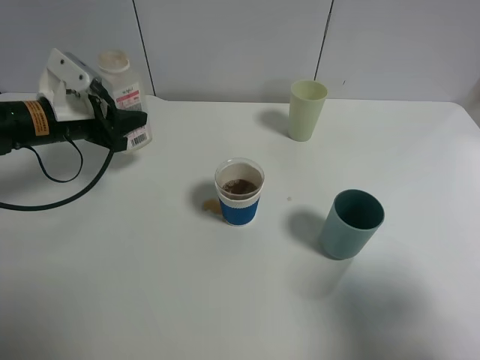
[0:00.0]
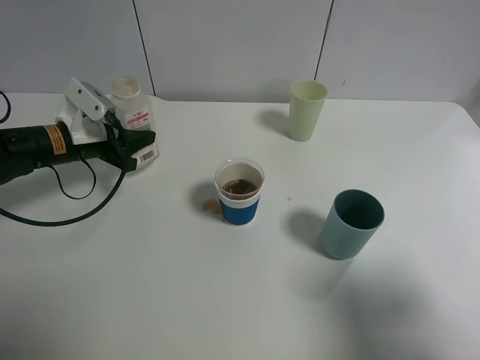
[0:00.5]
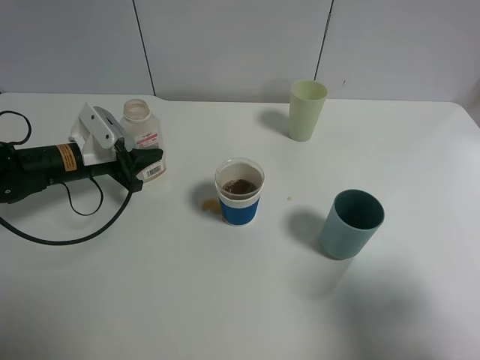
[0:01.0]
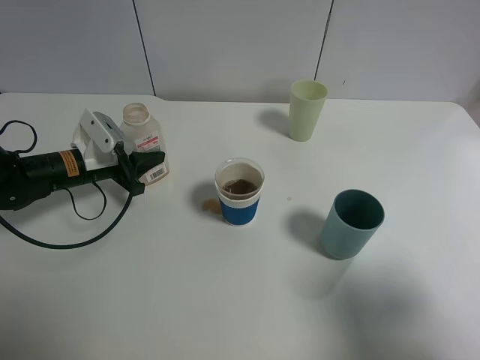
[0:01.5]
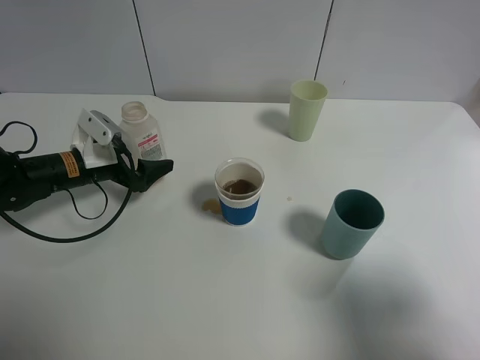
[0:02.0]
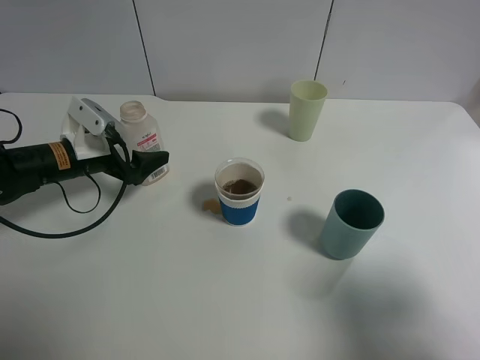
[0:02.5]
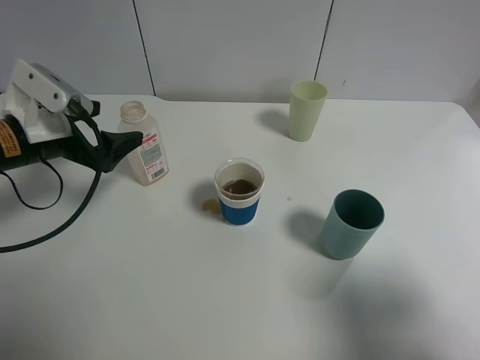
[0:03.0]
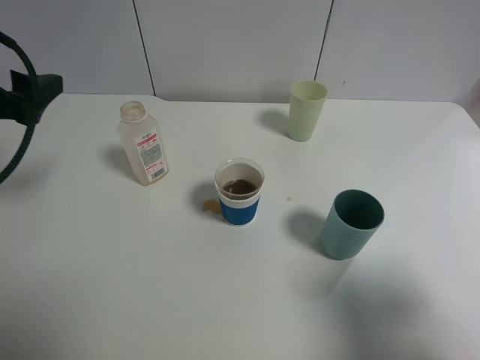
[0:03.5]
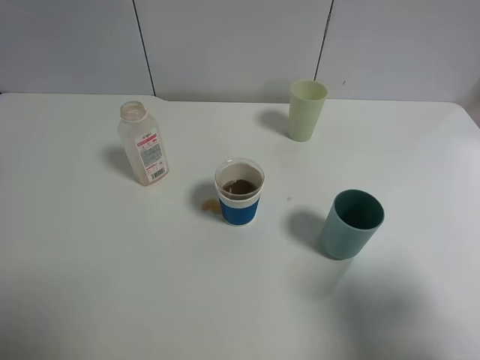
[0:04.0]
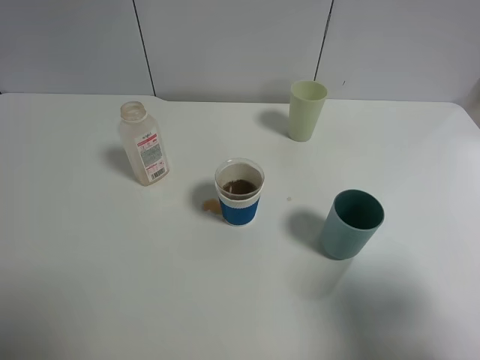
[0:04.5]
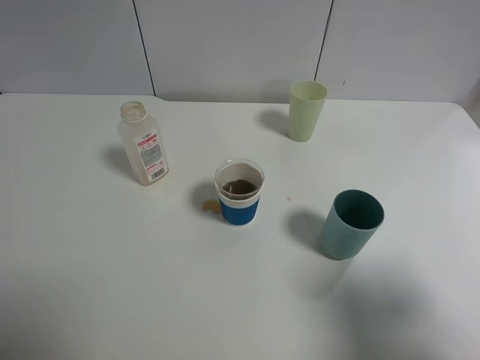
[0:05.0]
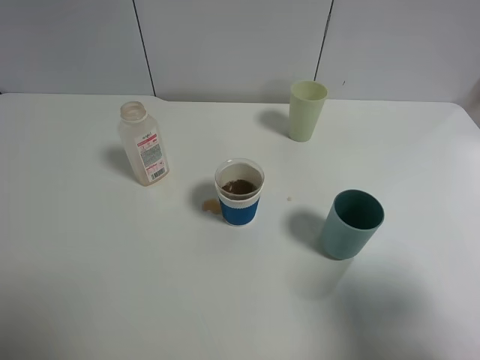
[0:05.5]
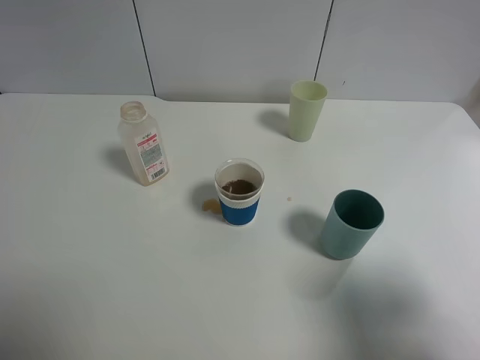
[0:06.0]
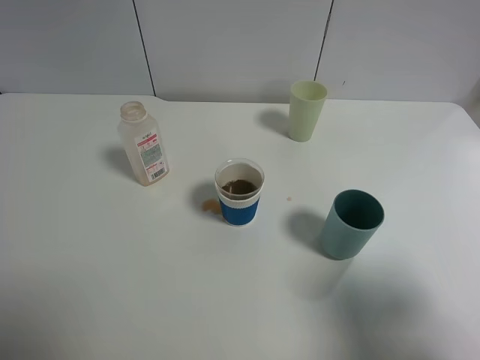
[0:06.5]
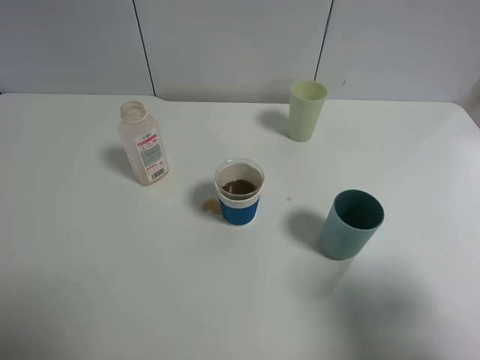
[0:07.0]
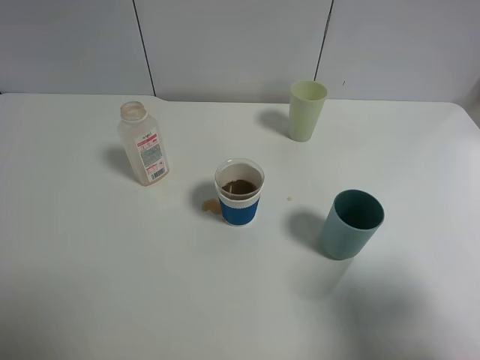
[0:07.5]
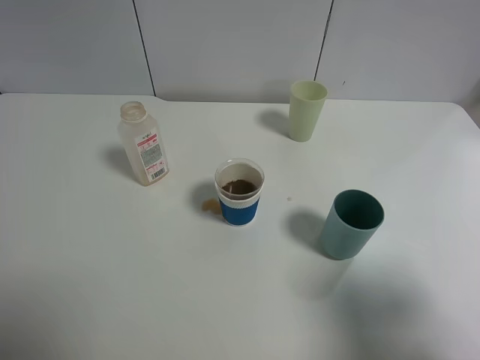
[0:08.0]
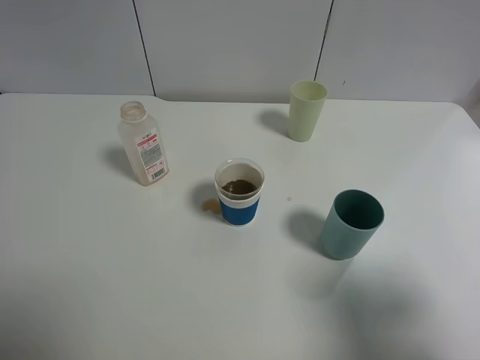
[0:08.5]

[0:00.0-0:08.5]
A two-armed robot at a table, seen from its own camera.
Task of the whole recording: use a gripper to hold the bottle of the drink and pour it into a random cup.
Step, 0:00.0 to 0:02.0: Place the cranberry juice bottle on the table with the left gripper.
0:00.0 to 0:02.0: The left gripper goes about 10 cm downward, and opens.
0:02.0 to 0:04.0: The left gripper moves upward and backward, roughly 30 cm.
0:06.5 to 0:08.5: Both grippers stay put.

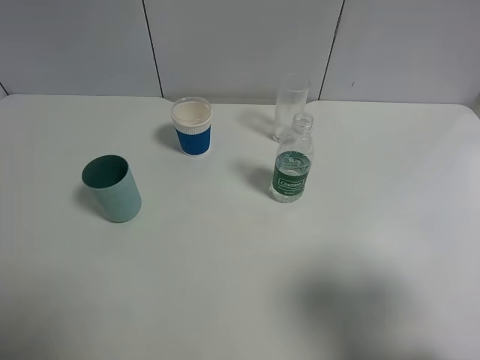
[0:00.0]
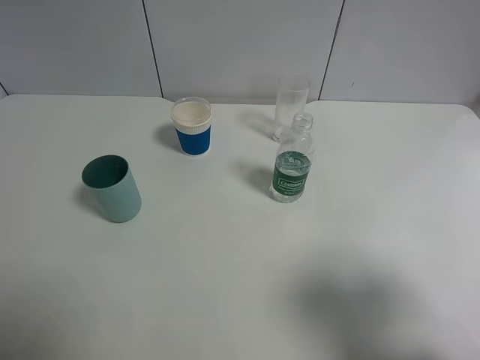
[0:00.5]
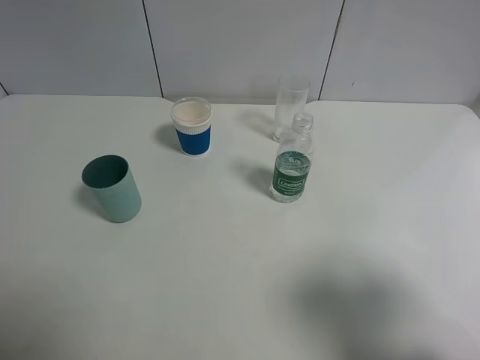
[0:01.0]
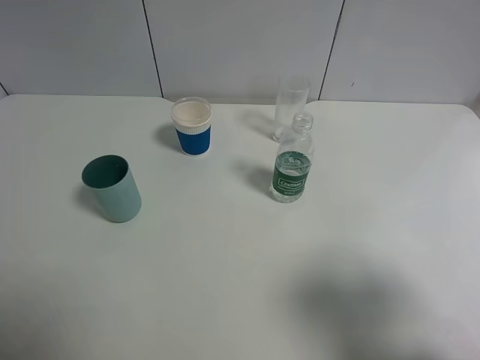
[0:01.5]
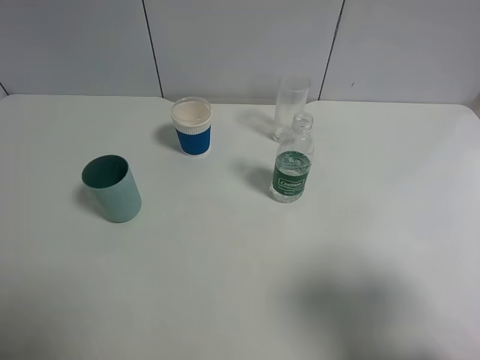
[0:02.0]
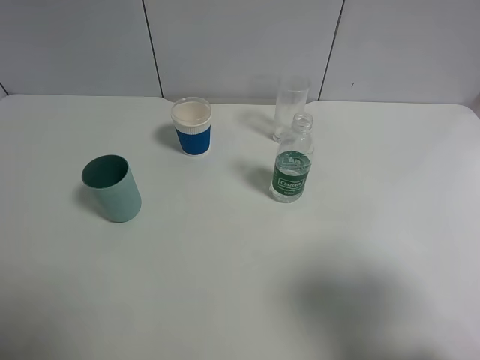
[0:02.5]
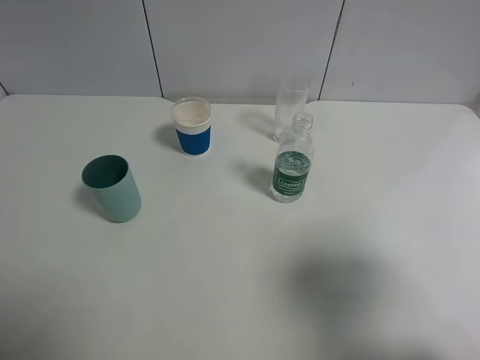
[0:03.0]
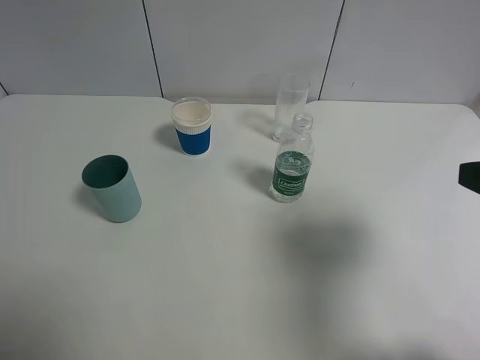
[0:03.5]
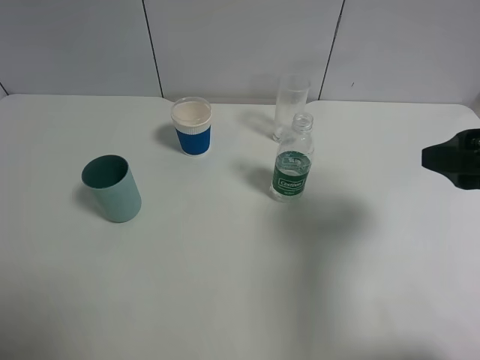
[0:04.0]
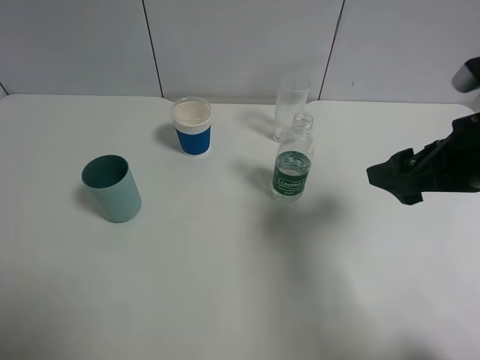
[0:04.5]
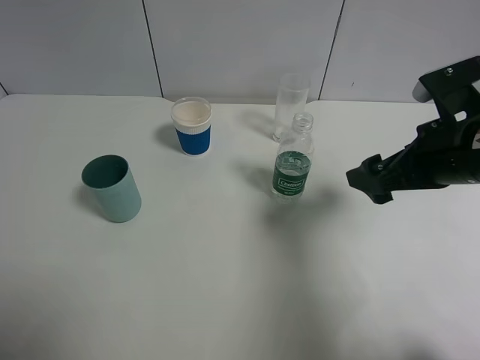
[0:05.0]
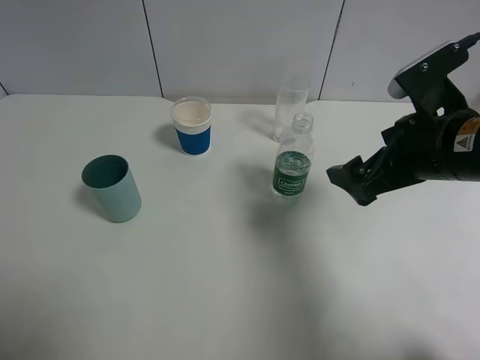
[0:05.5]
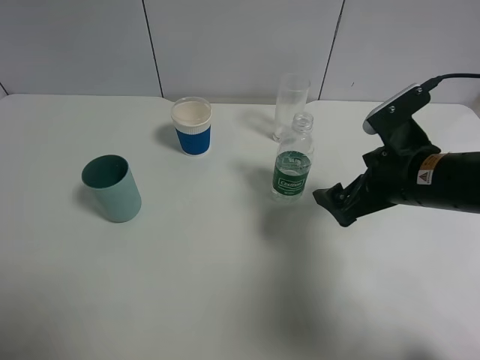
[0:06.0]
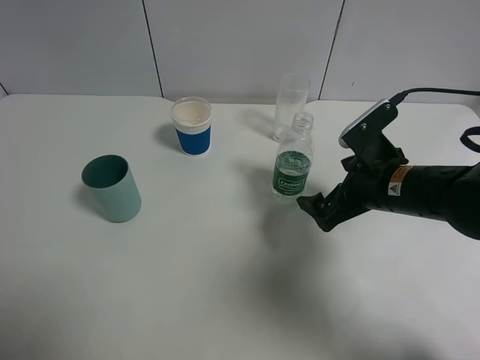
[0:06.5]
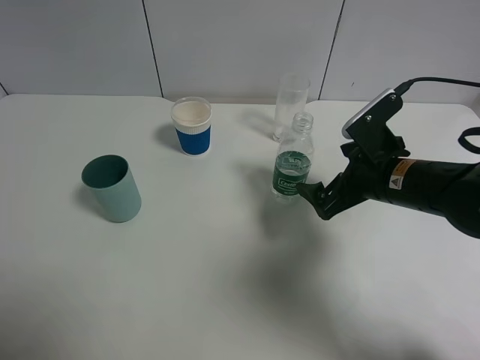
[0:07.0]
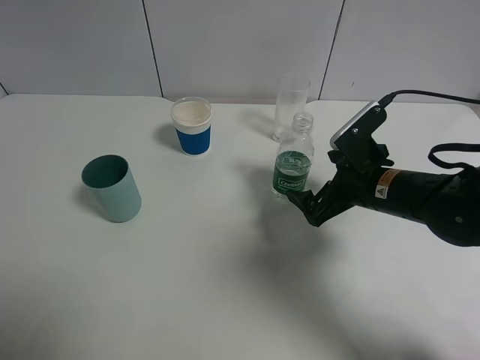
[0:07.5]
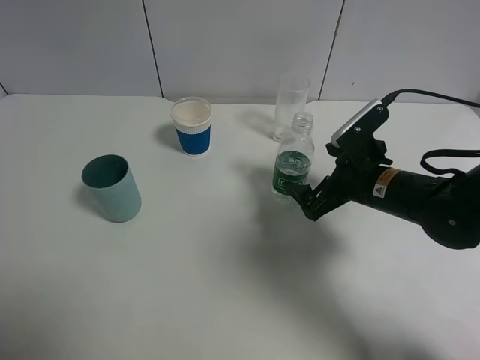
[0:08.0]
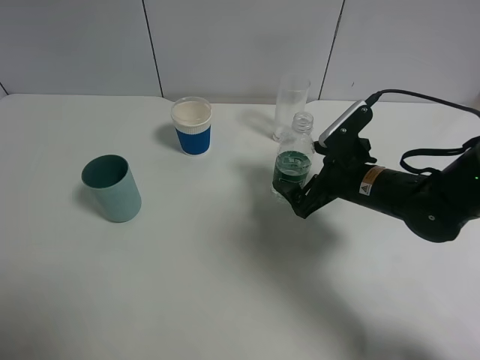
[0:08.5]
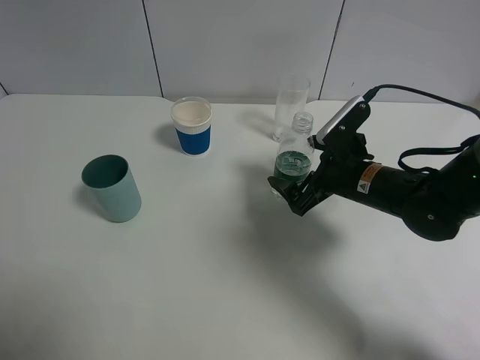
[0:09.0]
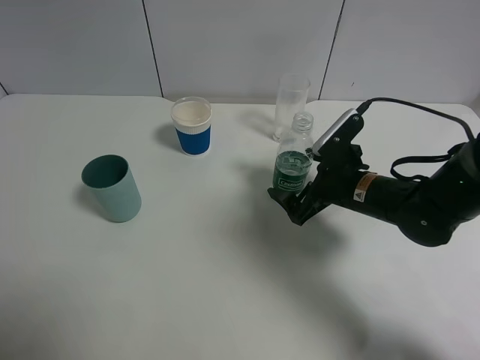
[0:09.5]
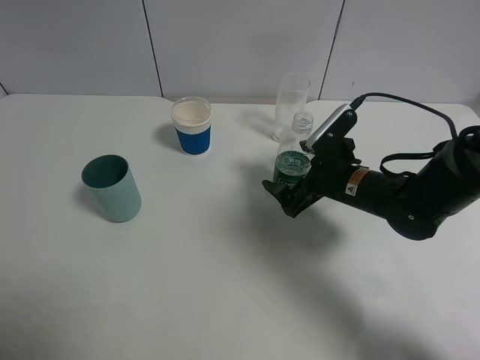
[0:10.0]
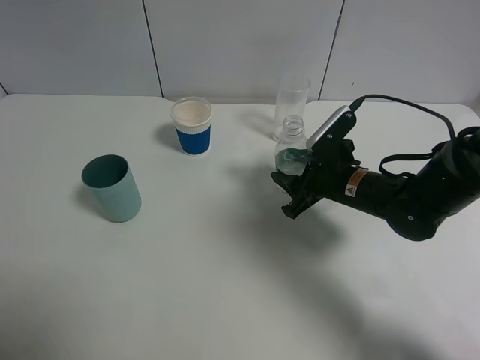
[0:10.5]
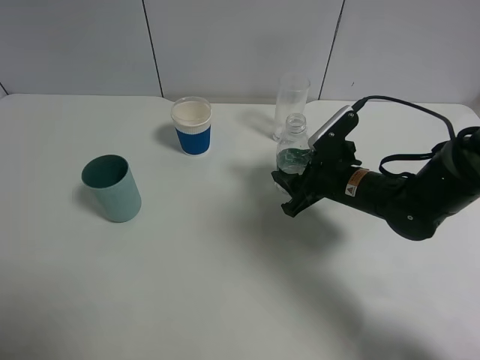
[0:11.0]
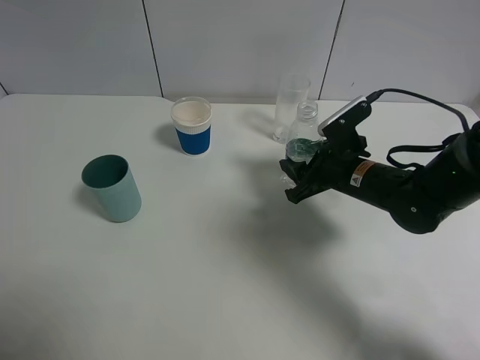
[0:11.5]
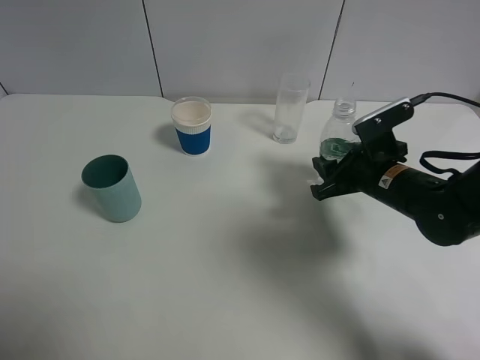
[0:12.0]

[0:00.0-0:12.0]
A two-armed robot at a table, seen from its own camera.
Task of the whole recording: use a gripper to hold the bottle of the drink and pour it into a random cup.
Step, 0:00.0 to 0:10.5: Grasp the mineral water bottle with the right gripper.
0:00.0 to 0:02.0: Neither gripper changes place.
0:02.0 to 0:04.0: The right gripper shifts roughly 15 cm forward.
0:04.0 to 0:06.0: The right gripper shifts approximately 15 cm downward, to the left and forward.
0:06.0 to 0:08.0: The right gripper goes approximately 5 cm downward.
0:08.0 to 0:10.0: There are only small adjustments of the grippers.
0:10.0 to 0:12.0: The right gripper ends up some 5 cm from where it was, and closes.

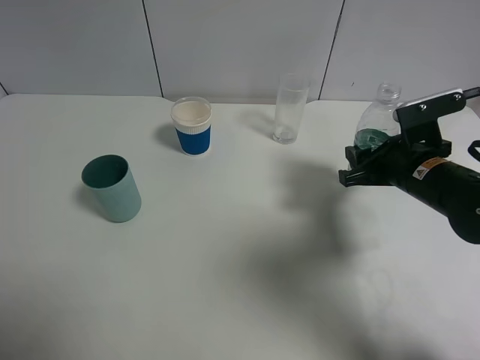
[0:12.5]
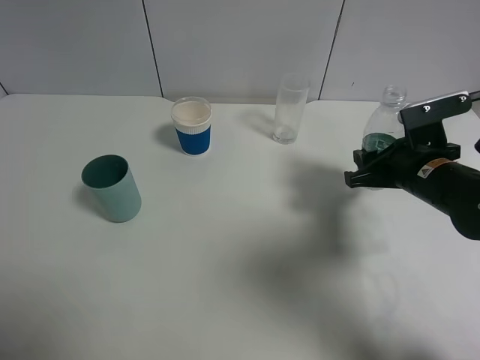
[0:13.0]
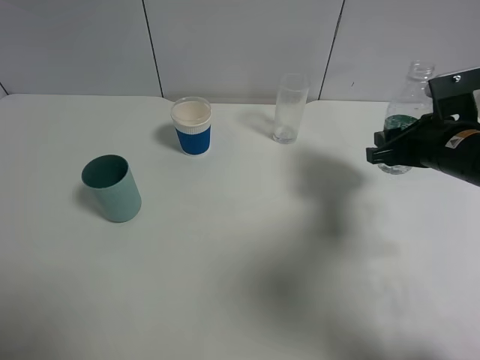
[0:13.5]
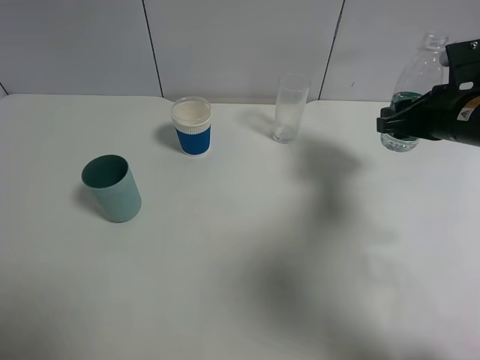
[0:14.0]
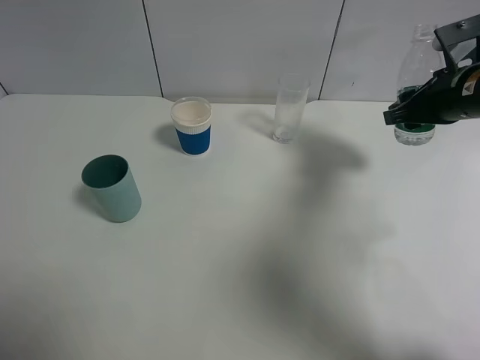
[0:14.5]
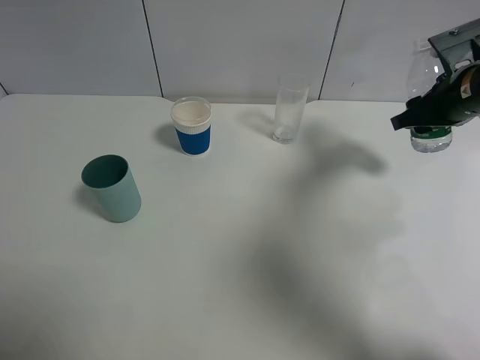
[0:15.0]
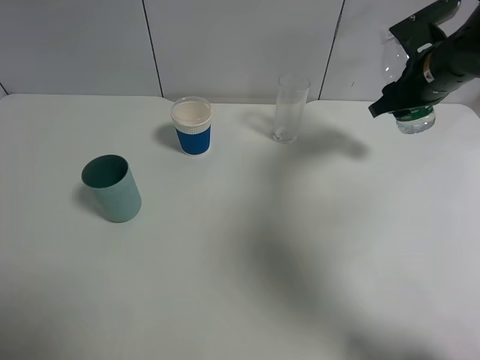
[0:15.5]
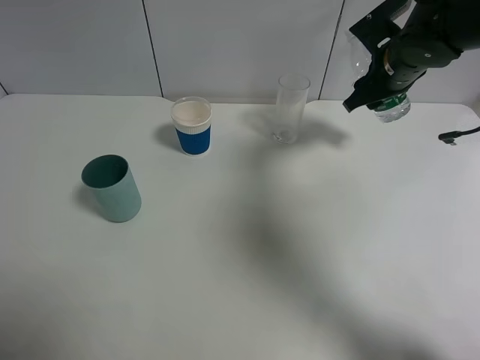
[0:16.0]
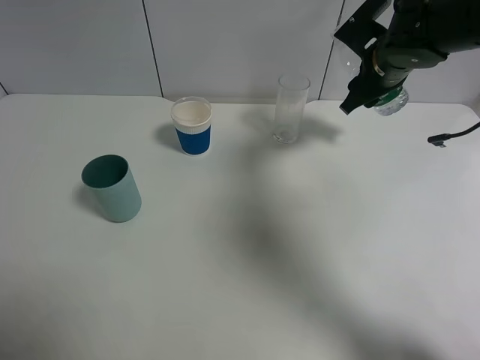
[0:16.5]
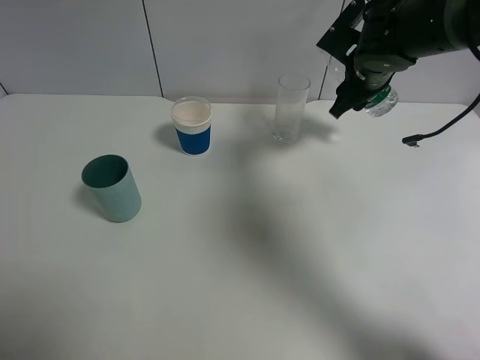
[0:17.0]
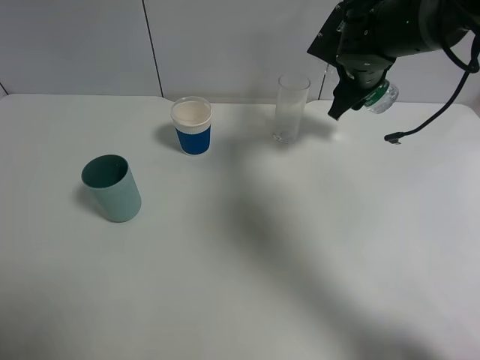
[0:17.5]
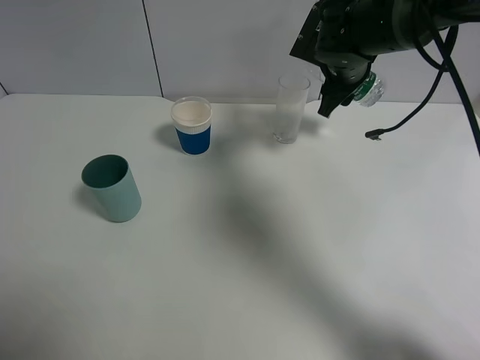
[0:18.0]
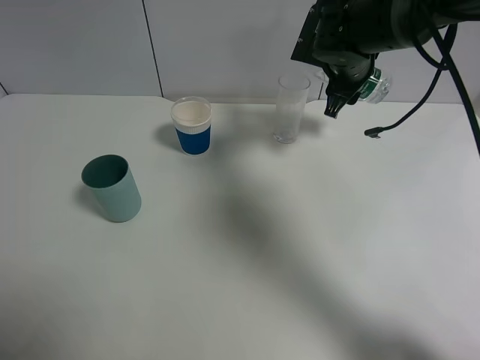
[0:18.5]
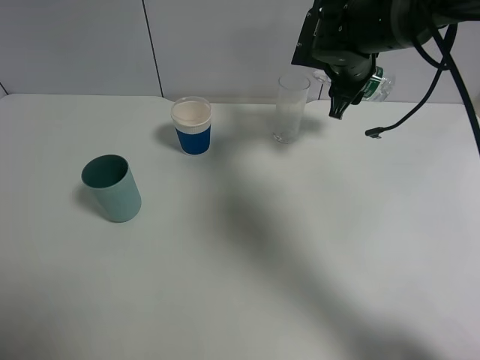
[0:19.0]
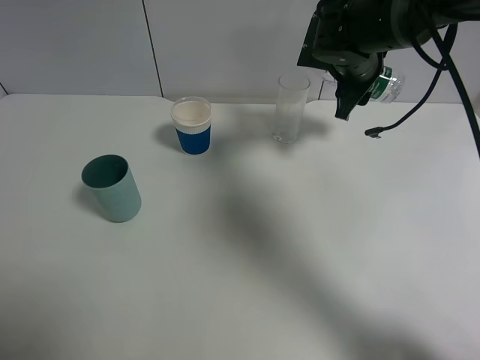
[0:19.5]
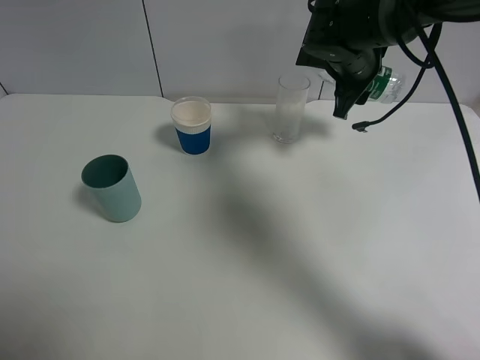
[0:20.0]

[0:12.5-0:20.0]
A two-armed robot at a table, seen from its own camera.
Task of the whole recording: use a gripper to hold the bottle of the drink and pour it into a random cup.
0:12.5 to 0:14.5: The right gripper travels upward, forward and to the right by some 10 cm.
0:14.5 to 0:16.5: The right gripper shifts some 10 cm forward and to the left.
0:16.5 to 0:18.0: The right gripper is displaced to the left by approximately 5 cm.
0:18.0 to 0:20.0: The grippers move only a little.
